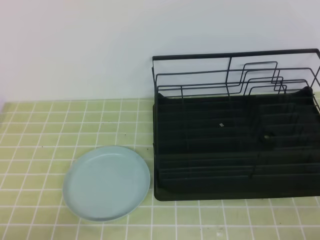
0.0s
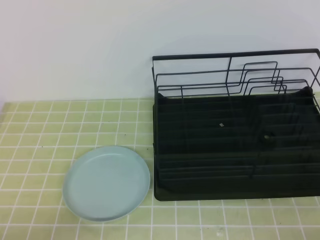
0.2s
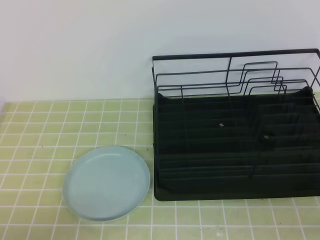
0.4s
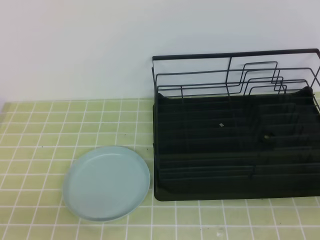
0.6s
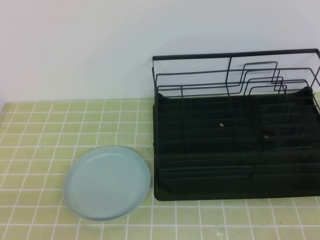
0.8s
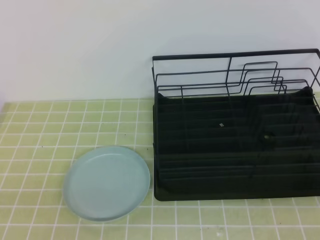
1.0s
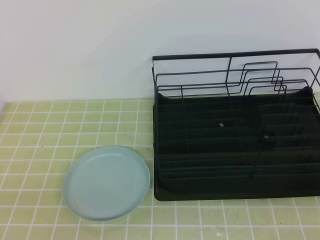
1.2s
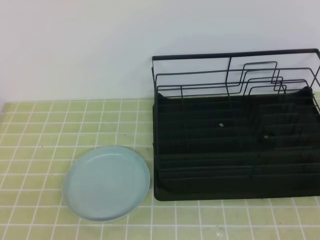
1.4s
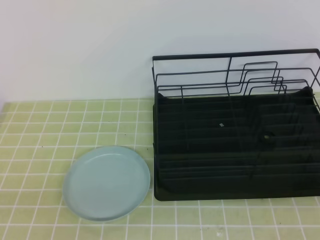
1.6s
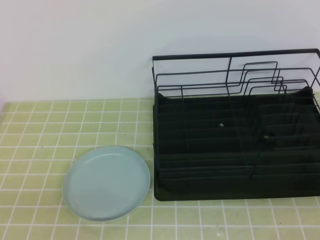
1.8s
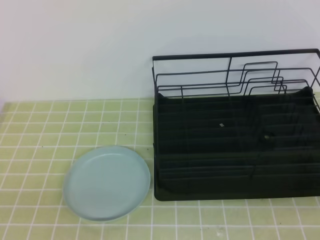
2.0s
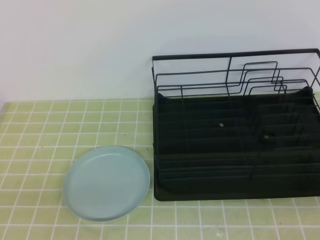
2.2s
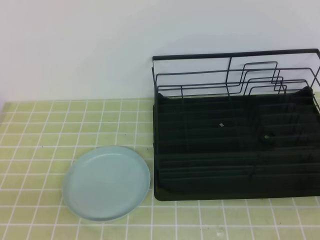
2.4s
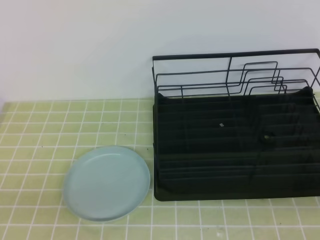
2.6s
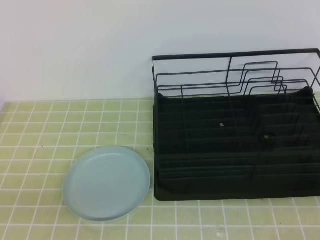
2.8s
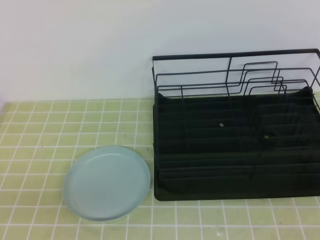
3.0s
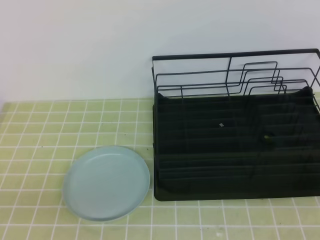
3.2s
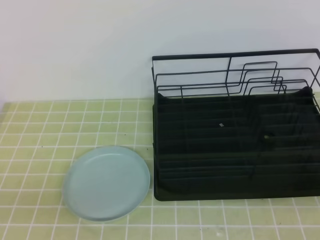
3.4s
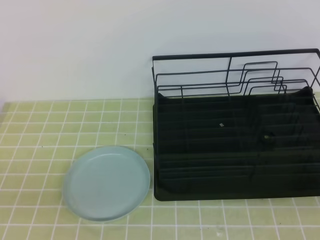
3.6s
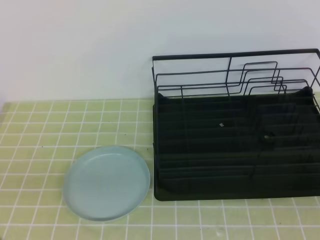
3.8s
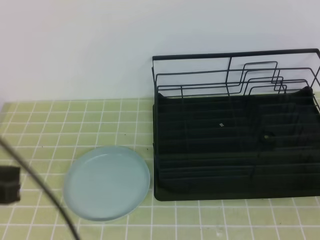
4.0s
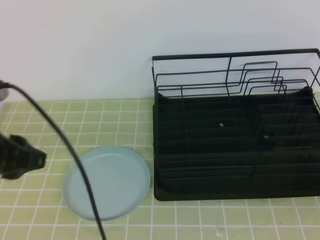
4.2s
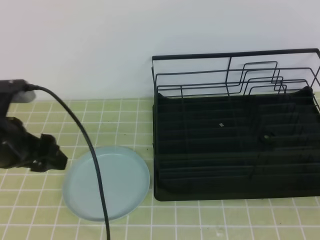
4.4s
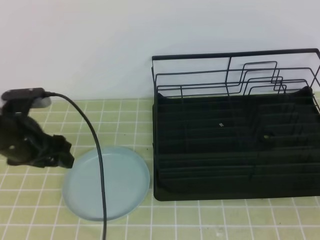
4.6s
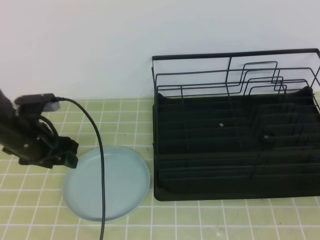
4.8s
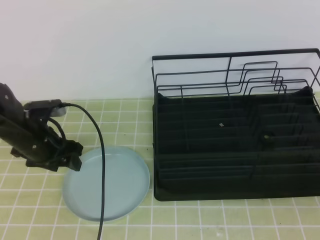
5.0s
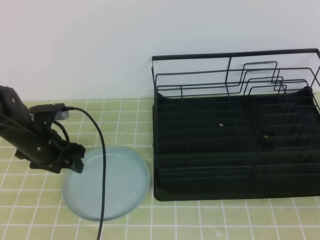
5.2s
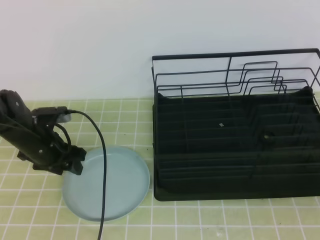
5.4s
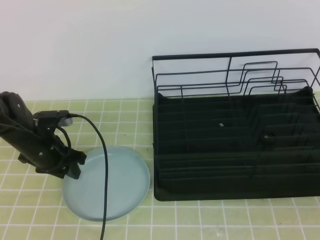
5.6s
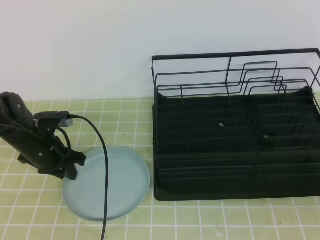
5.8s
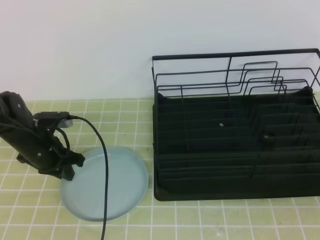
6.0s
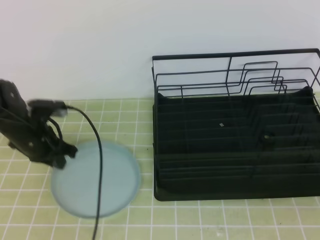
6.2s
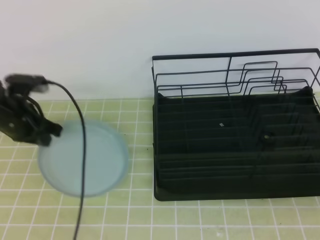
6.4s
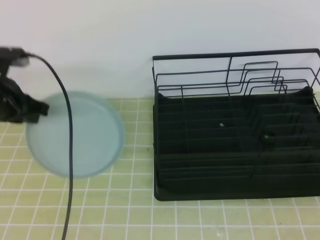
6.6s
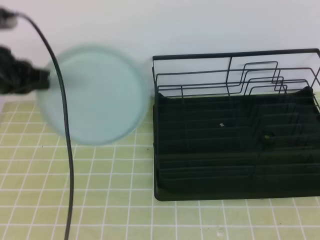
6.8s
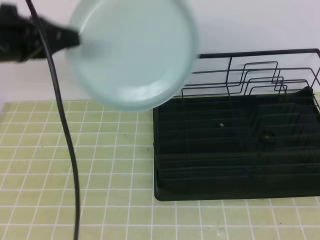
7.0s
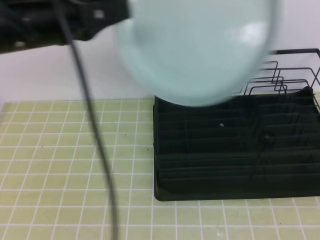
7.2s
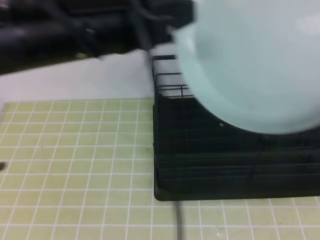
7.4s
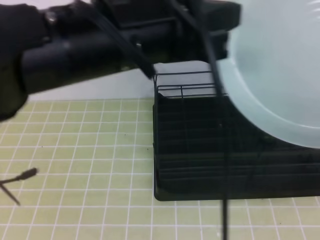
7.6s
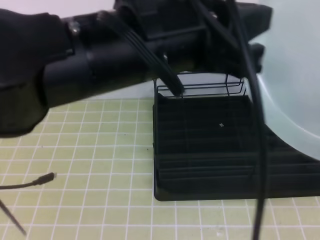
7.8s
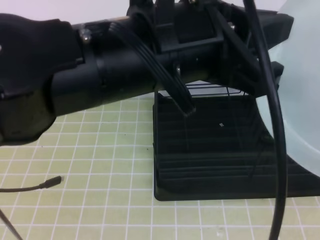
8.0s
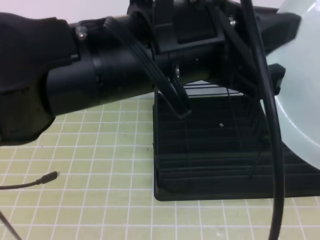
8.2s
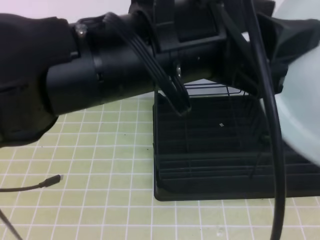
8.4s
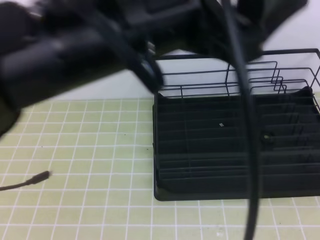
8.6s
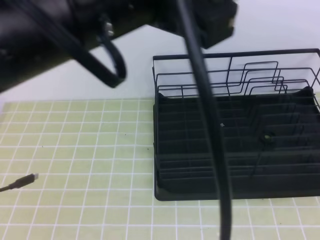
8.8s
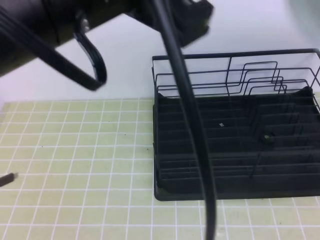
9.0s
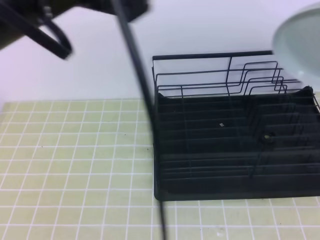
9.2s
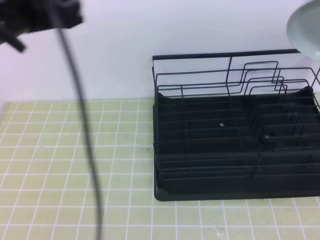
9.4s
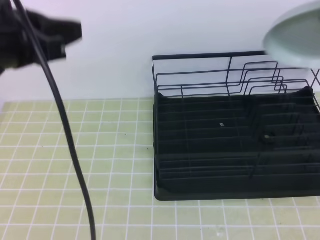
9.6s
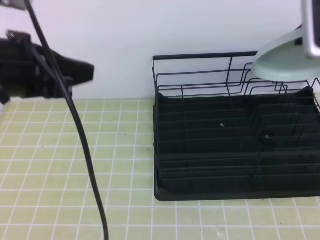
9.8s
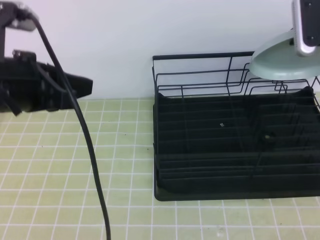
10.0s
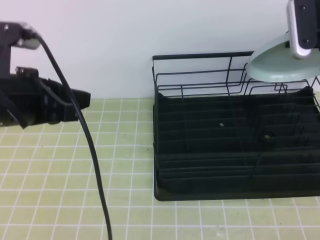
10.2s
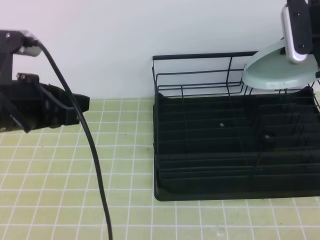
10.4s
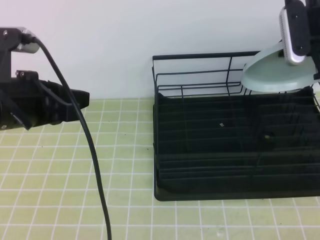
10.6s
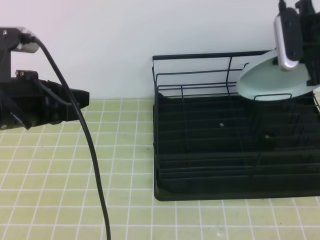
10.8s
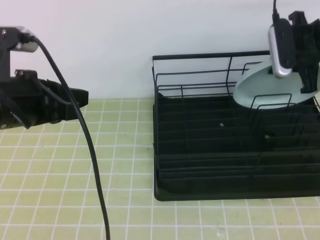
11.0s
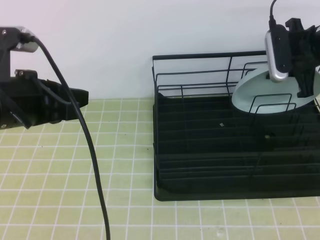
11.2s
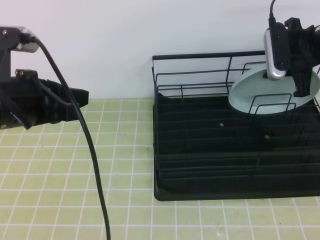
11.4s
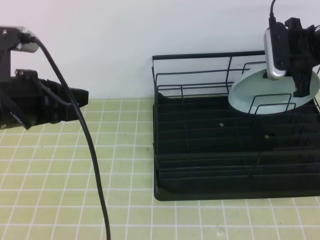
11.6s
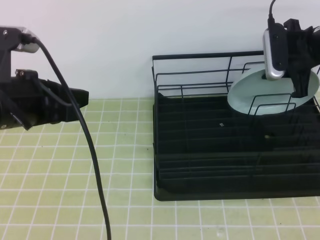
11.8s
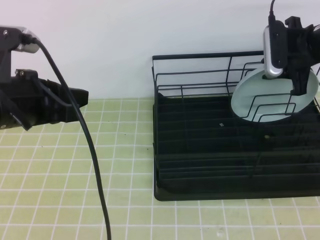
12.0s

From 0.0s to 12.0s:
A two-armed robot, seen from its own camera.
Step, from 0.0s to 4.8s: Left grab the green plate.
Step, from 5.0s to 6.6s: Right receive the plate.
Step, from 6.8s to 9.8s: Right place it at the back of the shelf.
From 3.0s to 4.4s: The left gripper moves forward, roughly 20 cm, and opens its fingers.
From 4.4s to 6.0s: The left gripper goes roughly 20 cm downward and forward, and closes.
From 6.0s to 7.6s: The right gripper shifts some 10 cm upward, and opens its fingers; the left gripper is displaced upward, to the right and backward by about 35 cm.
From 7.6s to 9.0s: The left gripper ends up approximately 5 cm from where it was, and opens up; the right gripper heads forward, covering some 15 cm, and closes up.
From 9.0s to 10.4s: The left gripper is displaced downward, to the left and forward by roughly 20 cm, and closes. The right gripper moves forward and downward, approximately 20 cm.
From 10.4s to 12.0s: The right gripper heads downward, covering some 5 cm.

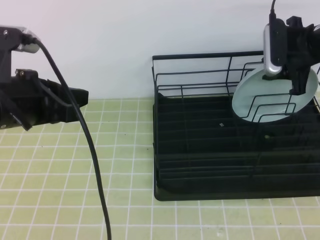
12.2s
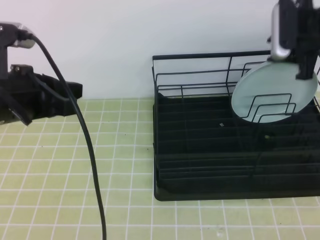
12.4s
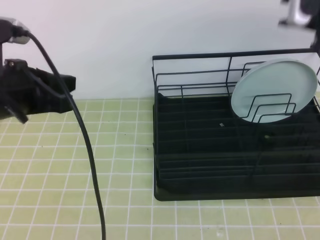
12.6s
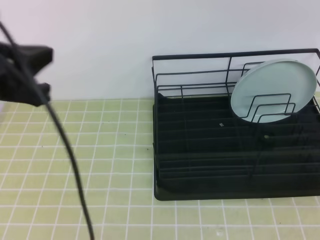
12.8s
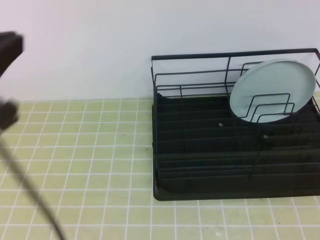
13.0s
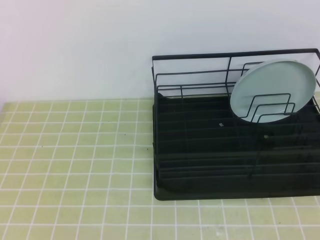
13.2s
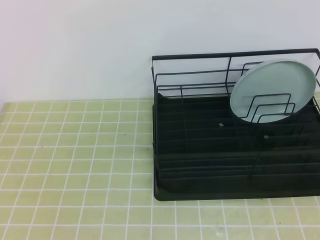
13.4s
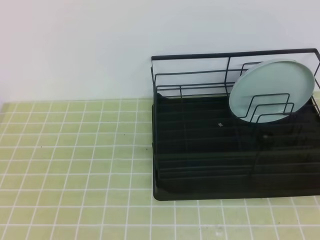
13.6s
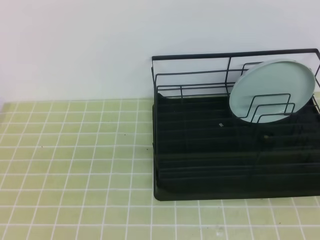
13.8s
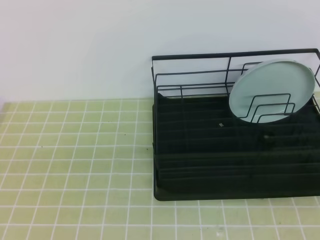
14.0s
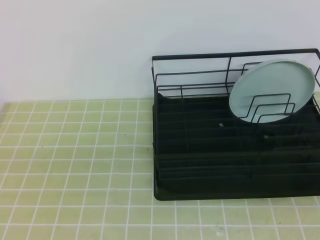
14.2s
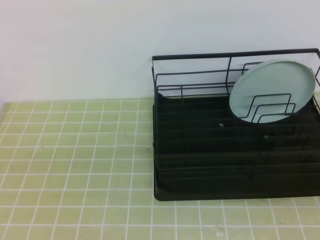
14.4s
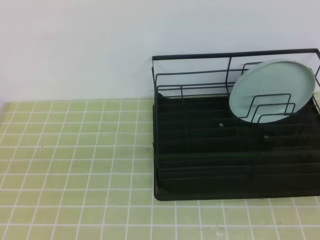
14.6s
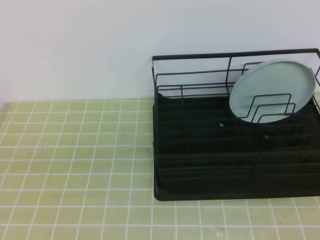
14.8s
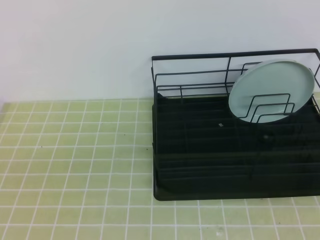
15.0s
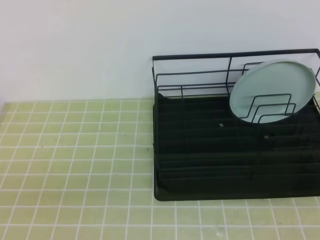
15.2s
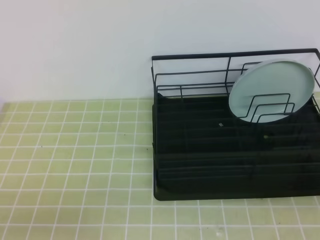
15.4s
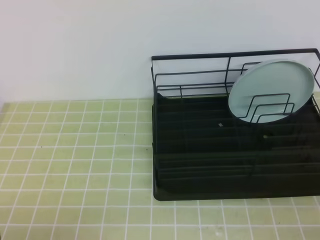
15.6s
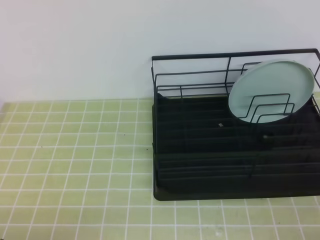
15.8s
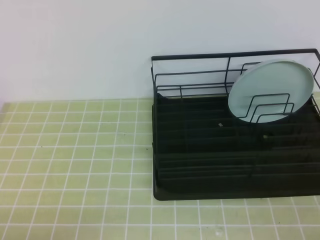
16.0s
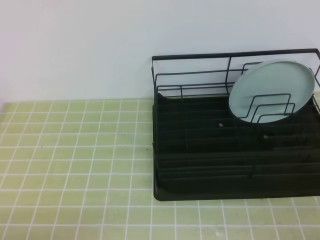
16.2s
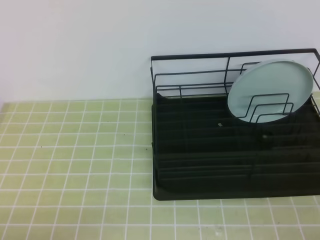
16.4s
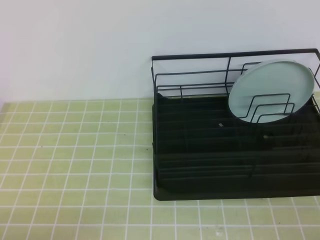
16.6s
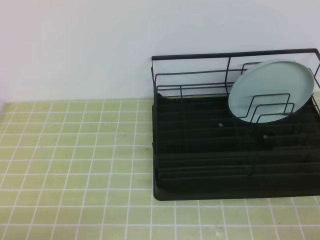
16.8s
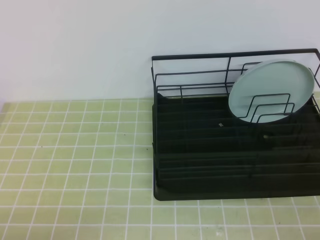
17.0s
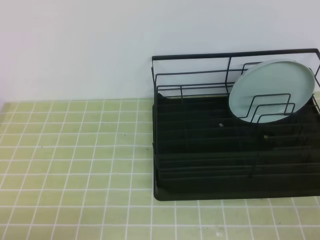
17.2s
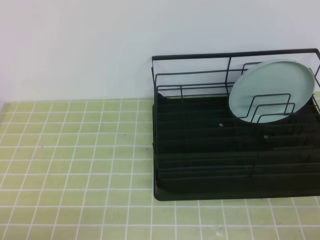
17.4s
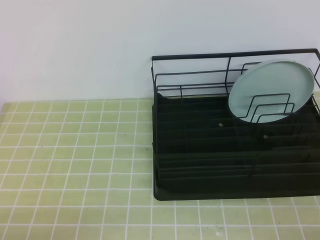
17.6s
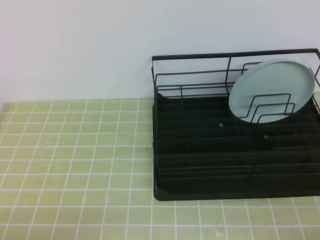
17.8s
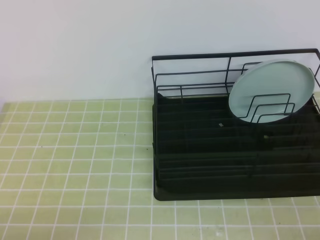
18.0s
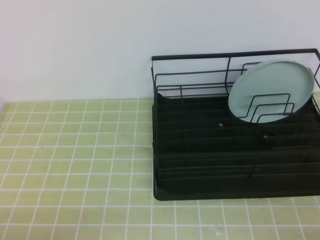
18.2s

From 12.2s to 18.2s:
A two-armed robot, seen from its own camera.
From 12.2s to 13.8s: The left gripper shifts roughly 20 cm backward. The right gripper travels backward by roughly 35 cm, and closes.
From 13.8s to 15.2s: The right gripper moves some 5 cm.
From 15.2s to 16.6s: The right gripper heads downward, covering roughly 10 cm.
